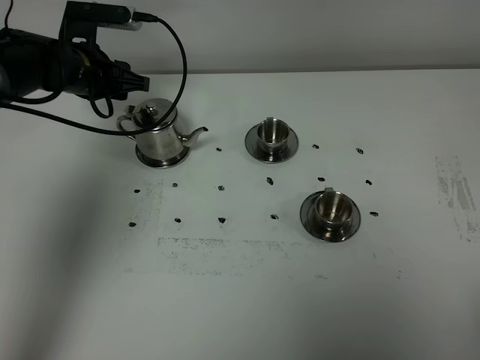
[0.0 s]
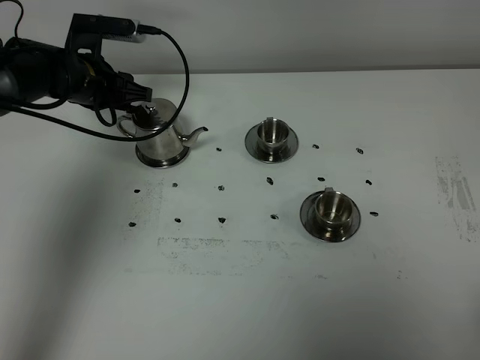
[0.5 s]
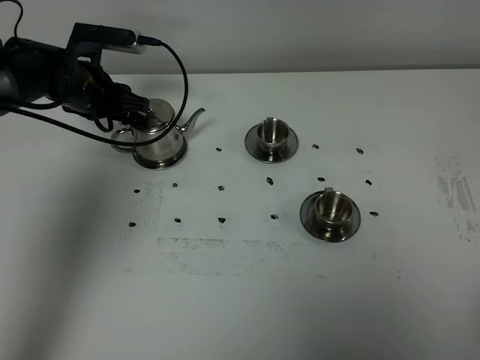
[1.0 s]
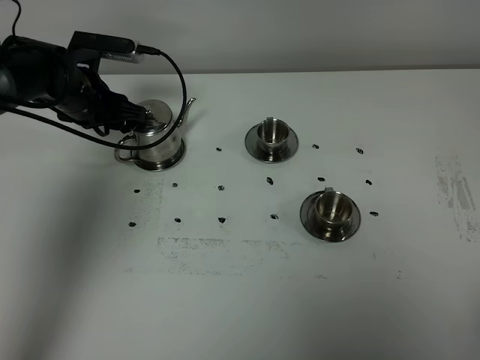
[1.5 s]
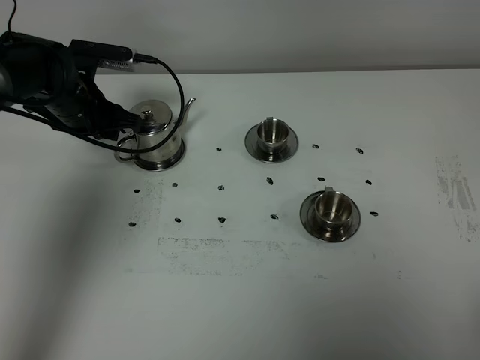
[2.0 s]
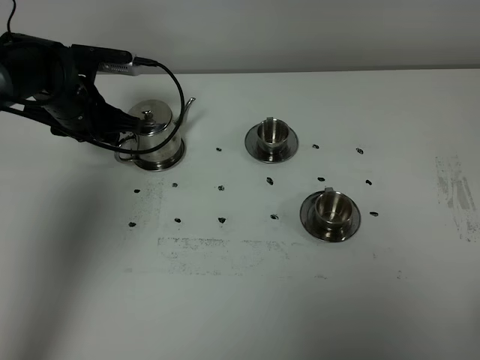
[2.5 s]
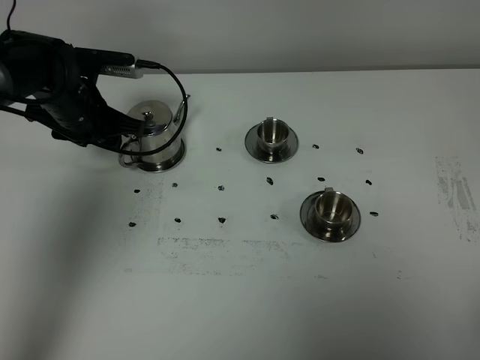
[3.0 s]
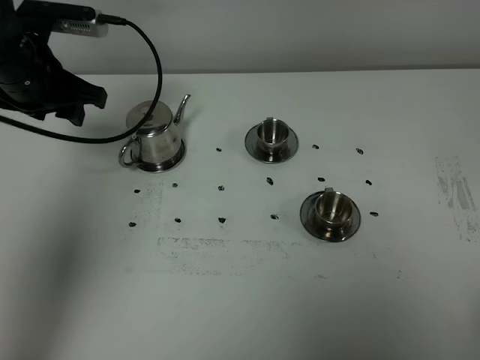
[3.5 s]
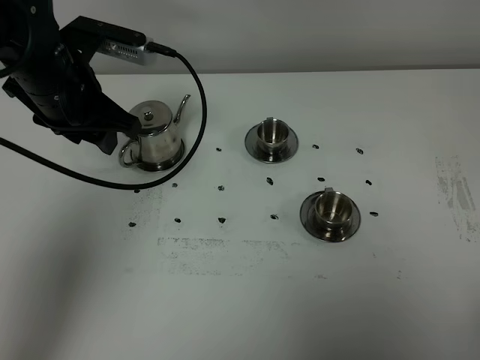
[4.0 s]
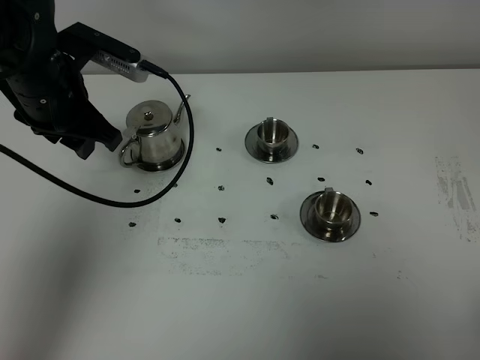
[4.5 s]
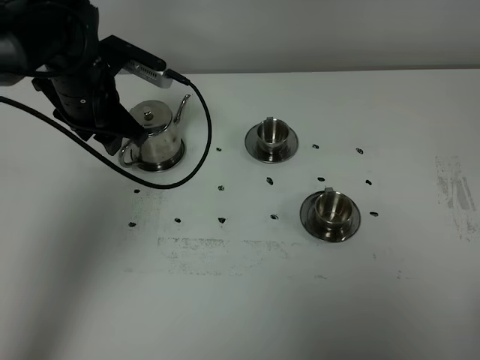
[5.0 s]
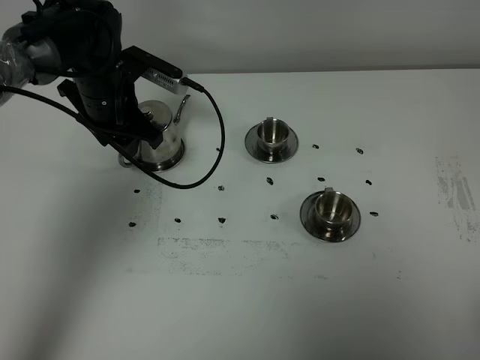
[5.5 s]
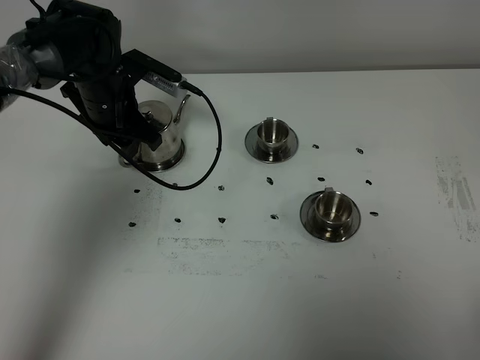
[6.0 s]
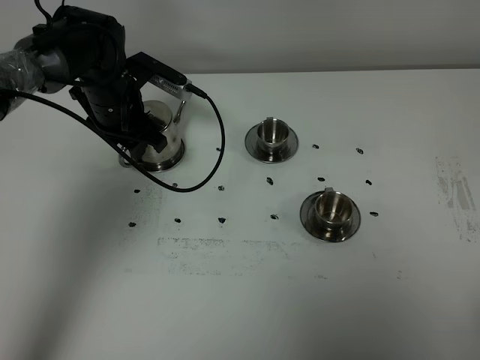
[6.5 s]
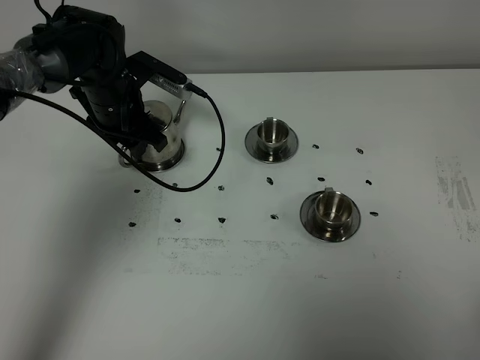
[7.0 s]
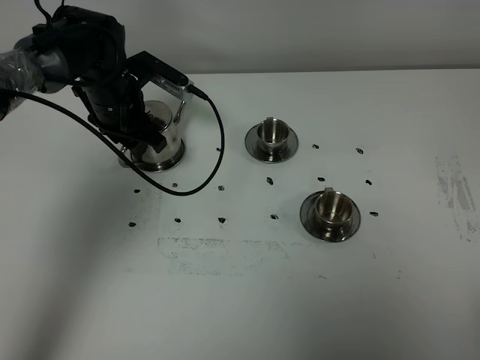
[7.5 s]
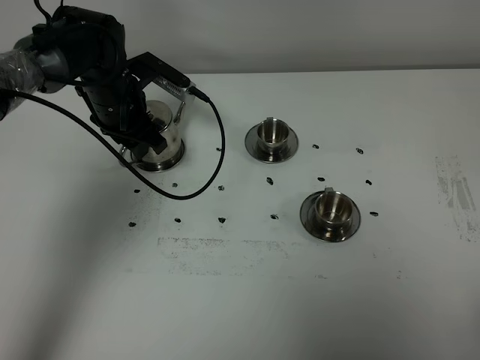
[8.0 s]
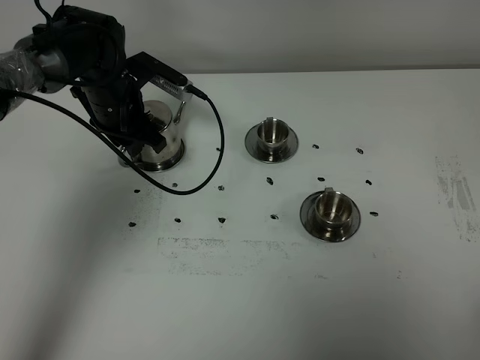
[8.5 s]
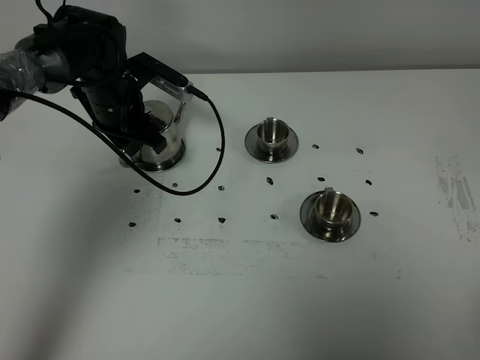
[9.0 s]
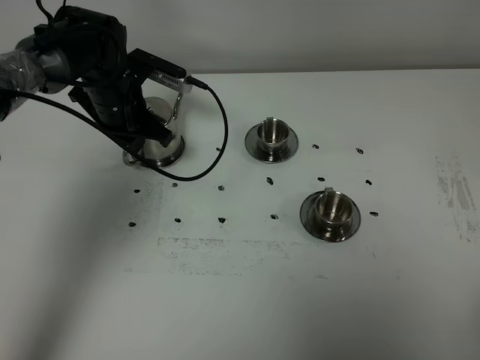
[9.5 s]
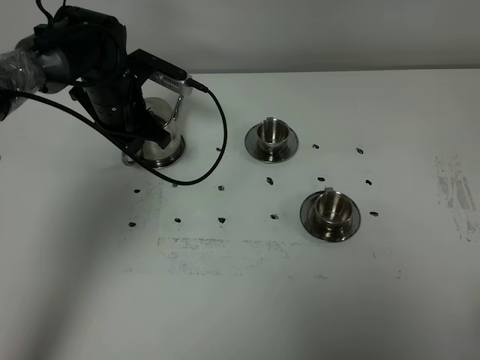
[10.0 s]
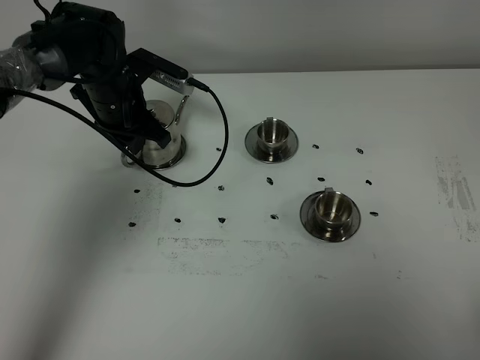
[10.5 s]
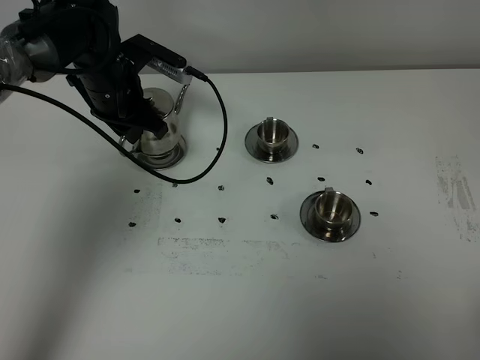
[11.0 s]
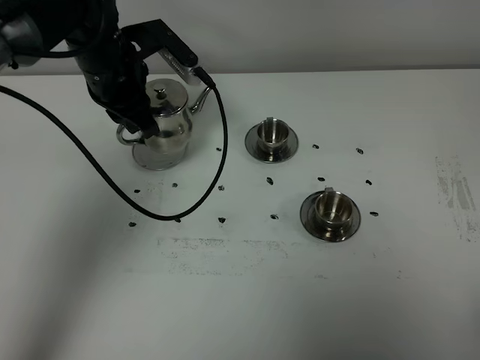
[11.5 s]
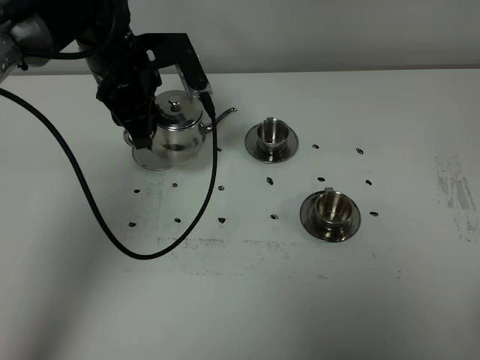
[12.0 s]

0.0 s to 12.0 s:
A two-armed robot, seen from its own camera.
Task of the whole recording: grasp the stainless steel teapot and pour the tea into the two stainless steel teacups one by one, put the stainless steel teapot back in its original place.
Step, 0.0 to 11.0 s: Pick up the teapot with the left gripper.
2.0 to 4.0 s: The left gripper goes approximately 15 cm upward and backward.
4.0 to 6.0 s: The left gripper is displaced downward and forward by some 15 cm.
6.0 to 8.0 s: There are only small adjustments of the grippers.
8.0 to 10.0 s: The left gripper closes up.
10.0 to 12.0 s: The left gripper moves upward, roughly 10 cm.

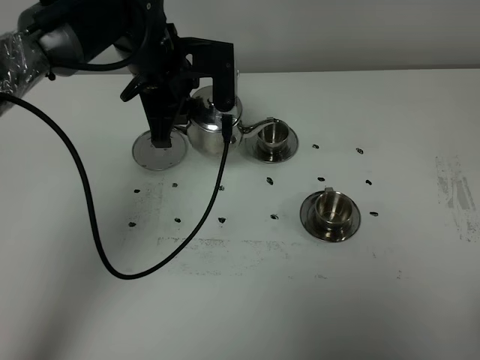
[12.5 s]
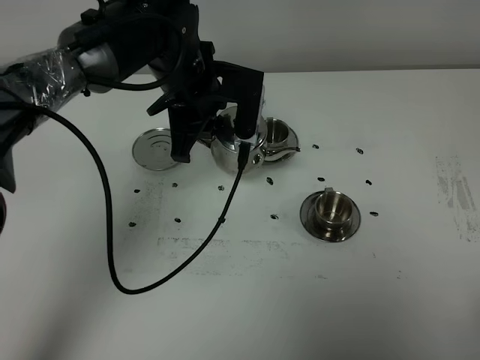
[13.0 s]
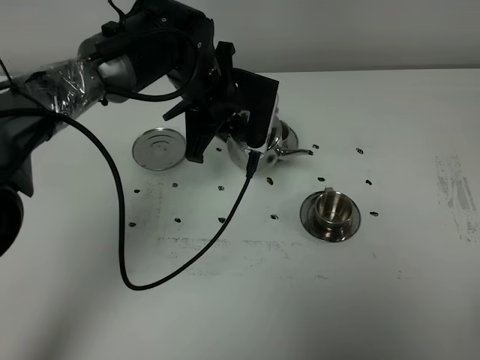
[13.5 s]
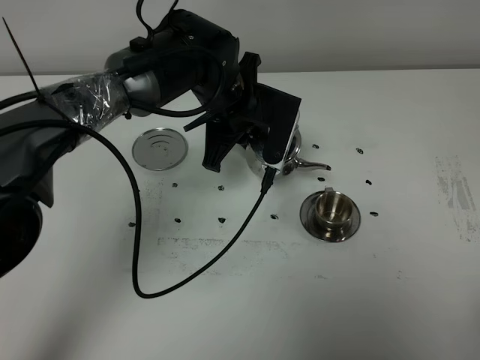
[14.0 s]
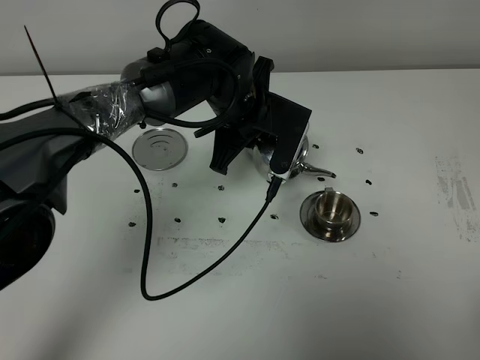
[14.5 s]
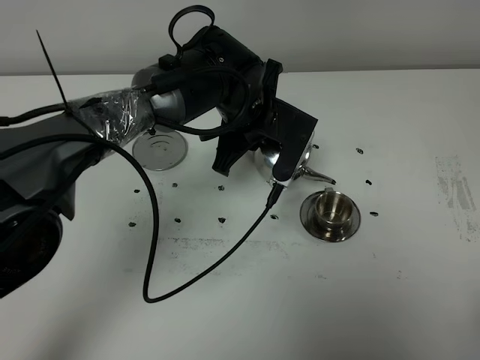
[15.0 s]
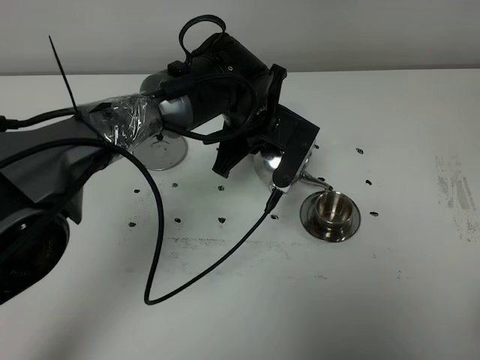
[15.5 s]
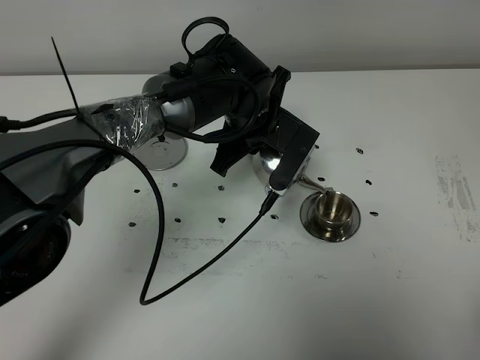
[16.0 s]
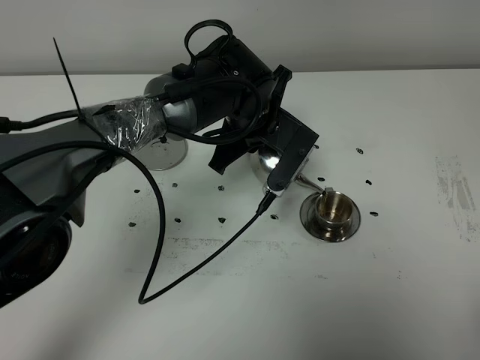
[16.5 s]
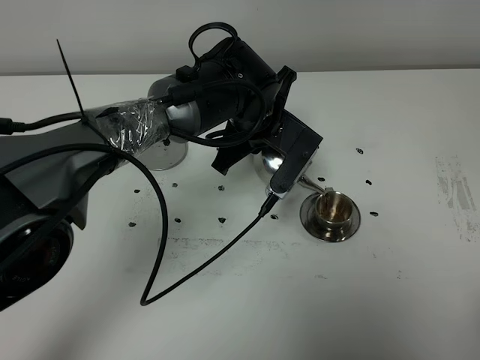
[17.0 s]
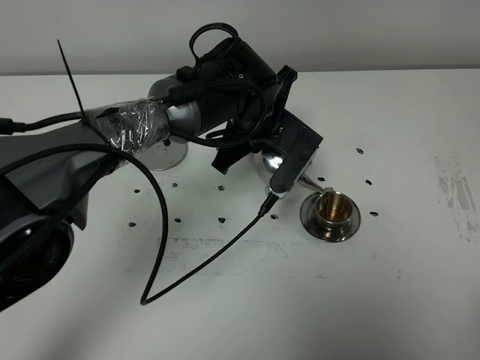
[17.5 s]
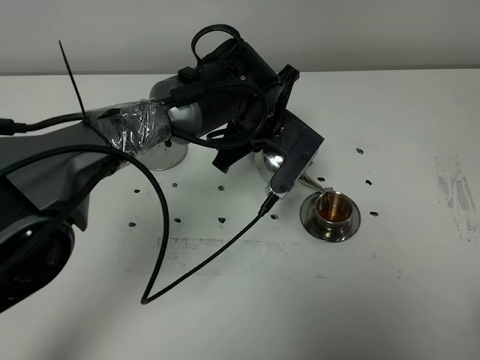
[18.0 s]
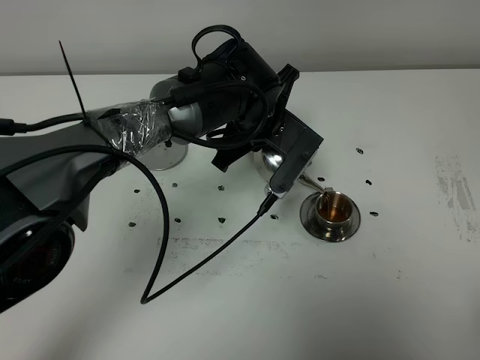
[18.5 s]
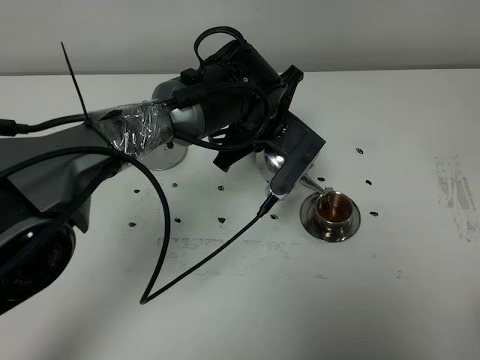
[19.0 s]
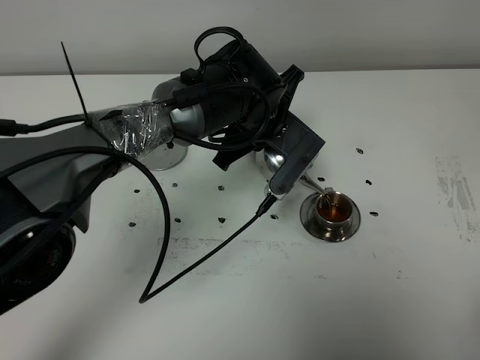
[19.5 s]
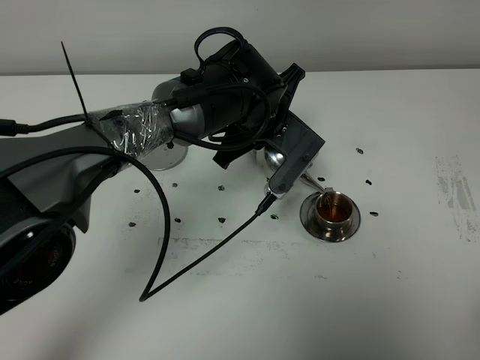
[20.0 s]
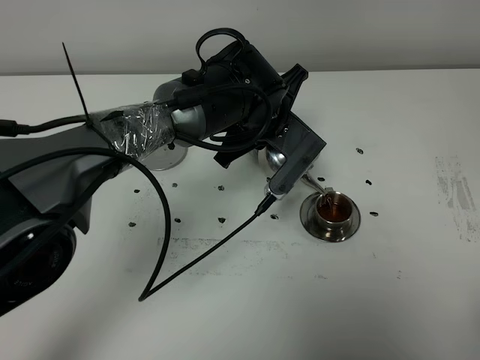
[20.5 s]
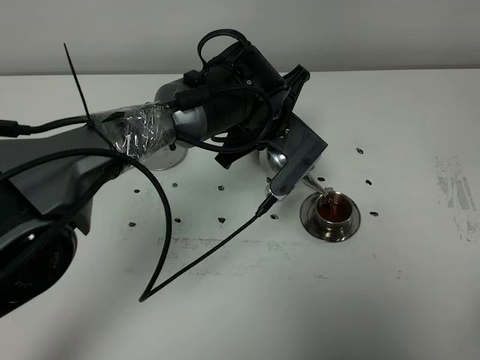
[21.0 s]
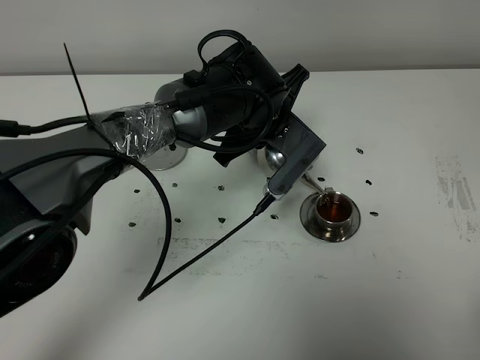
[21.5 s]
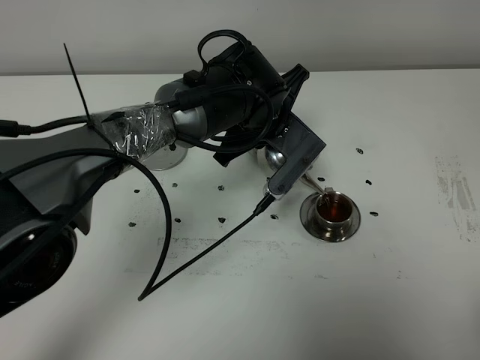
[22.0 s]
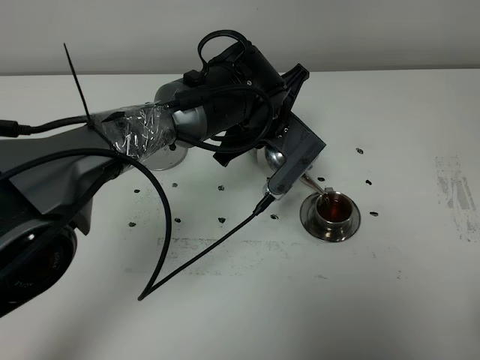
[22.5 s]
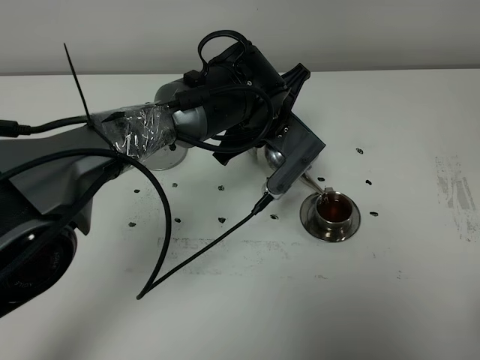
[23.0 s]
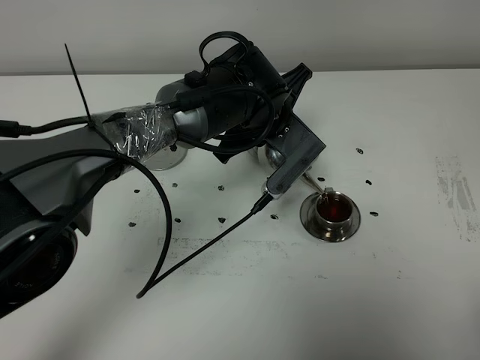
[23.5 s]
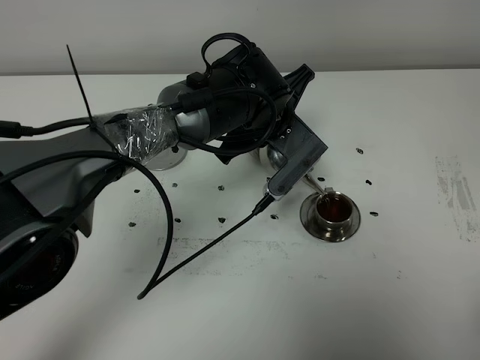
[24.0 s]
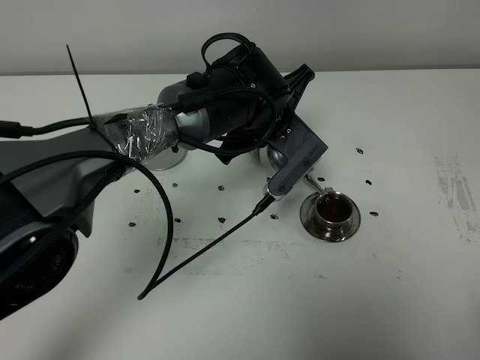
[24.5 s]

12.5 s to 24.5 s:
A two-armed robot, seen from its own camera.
Task of the whole recording: grasp the stainless steel teapot and pour the tea into the two stainless steel teacups one by one, put the stainless steel teapot back in its original place.
12.5 to 14.5 s: The left gripper is displaced to the right and downward by approximately 10 cm.
14.5 to 16.5 s: The grippers make only small movements.
16.5 to 18.5 s: Both grippers stay put.
18.5 to 20.5 s: There are only small adjustments of the grippers.
20.5 to 24.5 s: Neither gripper changes place.

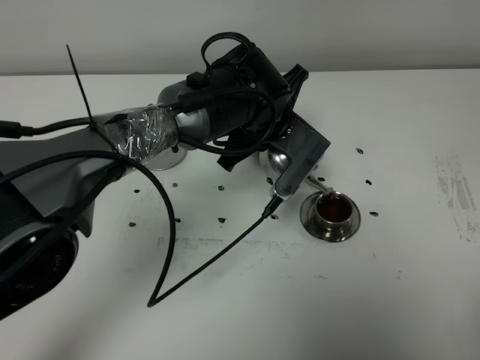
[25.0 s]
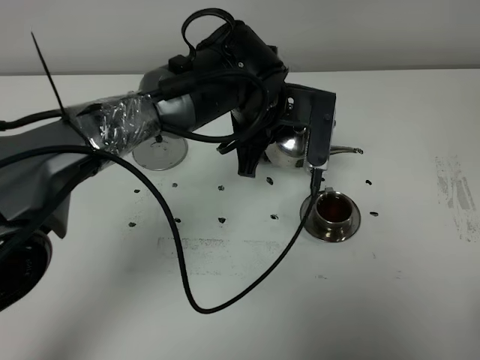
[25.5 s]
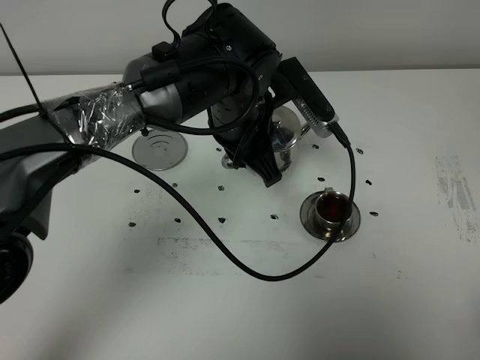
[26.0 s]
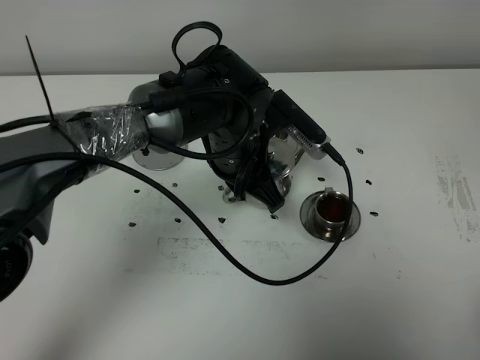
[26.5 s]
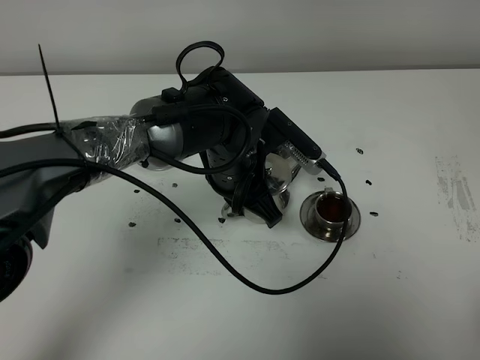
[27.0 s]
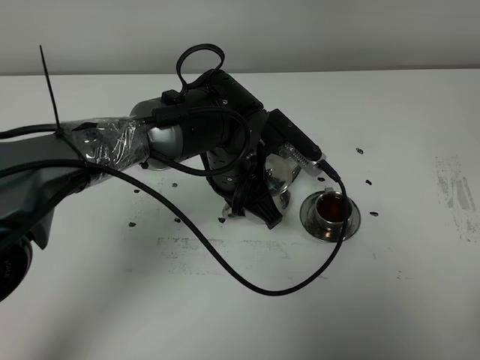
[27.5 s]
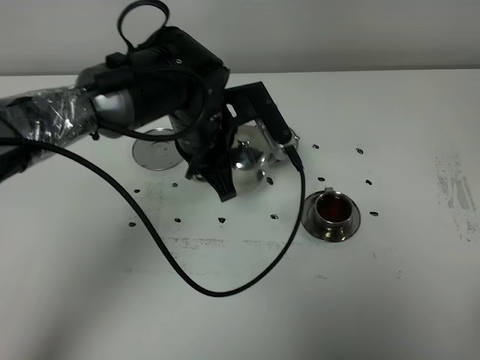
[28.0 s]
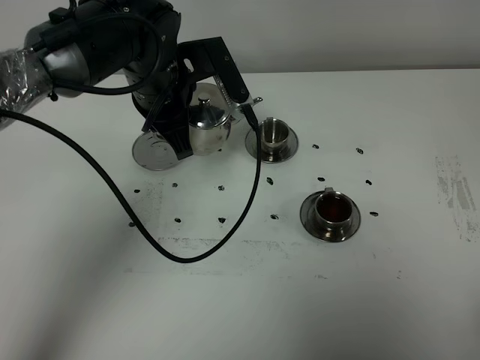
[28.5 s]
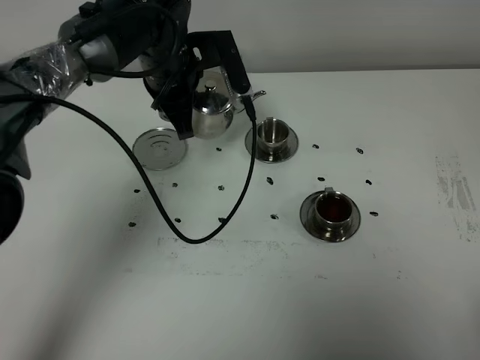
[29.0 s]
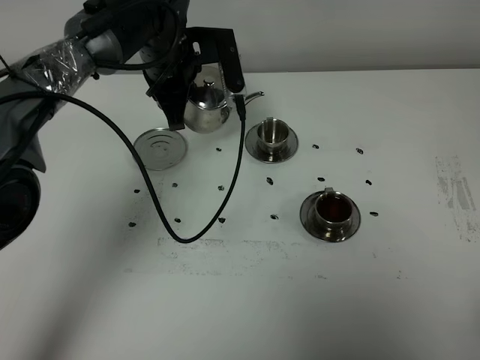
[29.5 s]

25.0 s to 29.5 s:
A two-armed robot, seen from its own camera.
Task of the whole recording: grasp the stainless steel teapot and pour the tea into the two stainless steel teacups one by one, put the stainless steel teapot back in its original place.
25.0 to 27.0 s: The left gripper moves about 5 cm.
27.0 to 29.5 s: The left gripper goes roughly 15 cm forward, to the left and upward.
